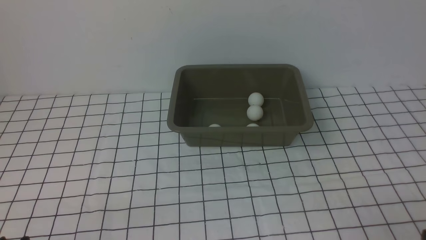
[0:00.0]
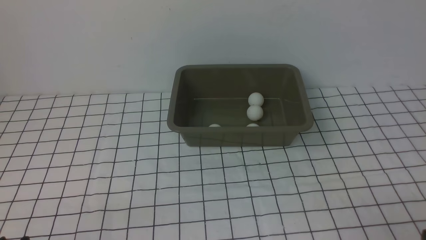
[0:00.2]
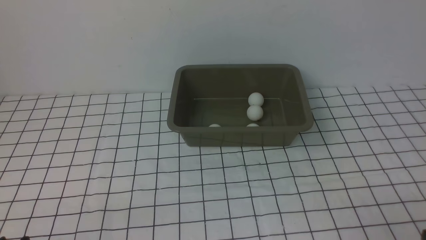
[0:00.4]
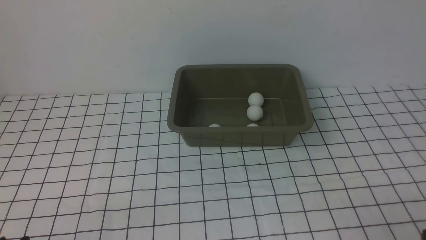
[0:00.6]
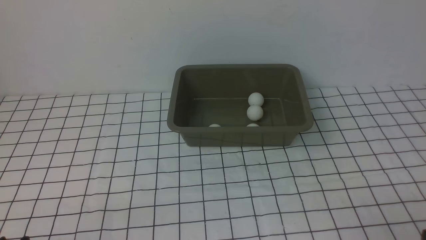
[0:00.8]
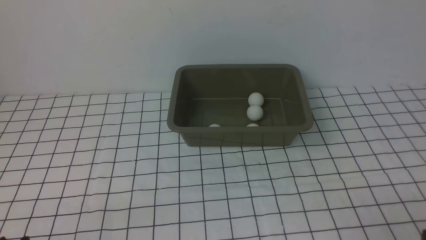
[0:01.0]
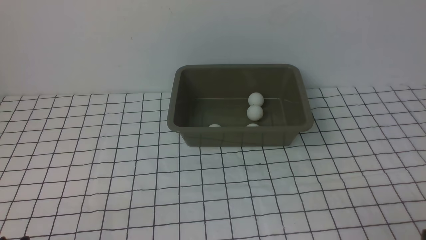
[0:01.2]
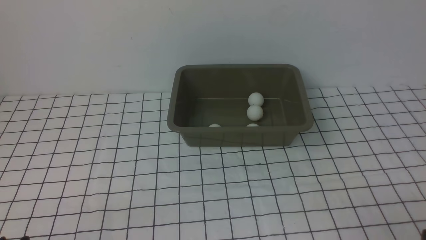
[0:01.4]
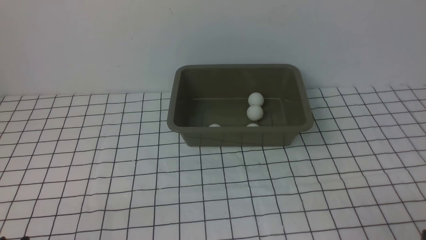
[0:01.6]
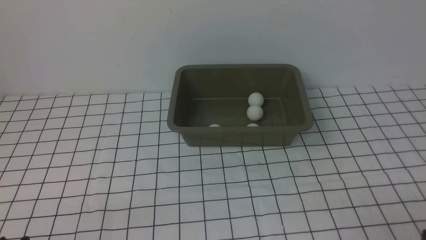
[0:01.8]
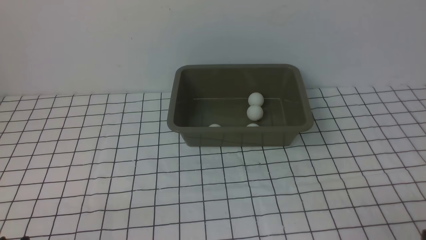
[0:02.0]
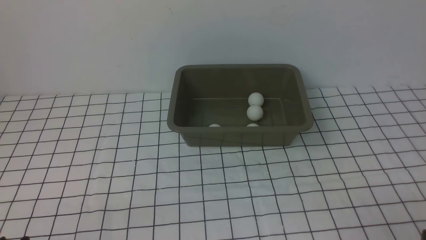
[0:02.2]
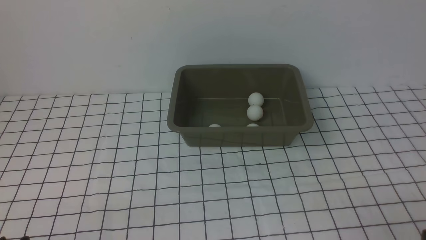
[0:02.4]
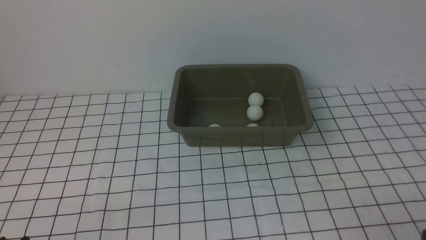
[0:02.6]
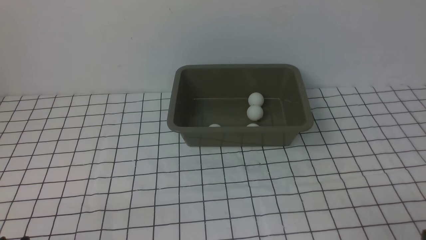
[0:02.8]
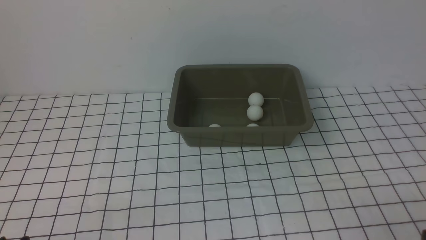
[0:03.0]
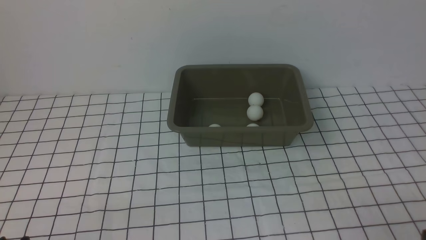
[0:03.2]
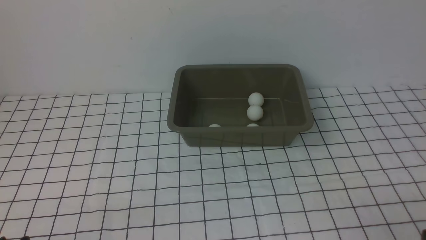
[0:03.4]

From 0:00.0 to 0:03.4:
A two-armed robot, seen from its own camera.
From 0:00.0 to 0:03.4: Both grippers stay about where they are.

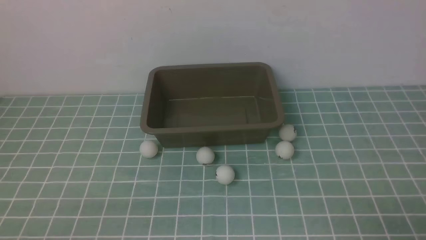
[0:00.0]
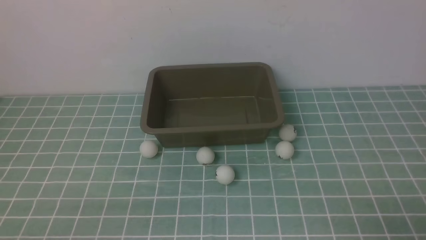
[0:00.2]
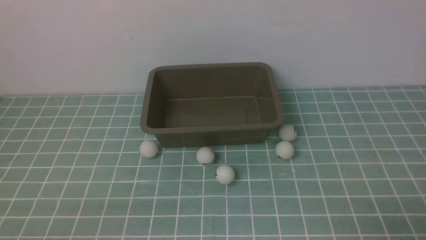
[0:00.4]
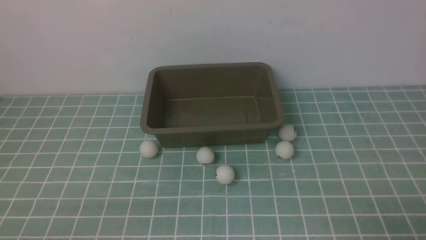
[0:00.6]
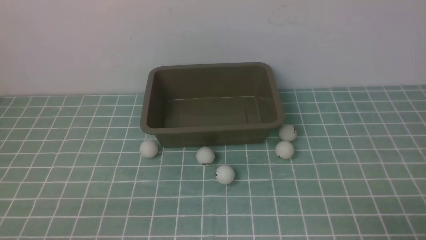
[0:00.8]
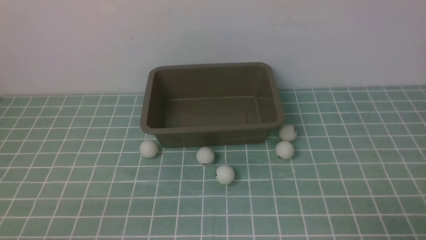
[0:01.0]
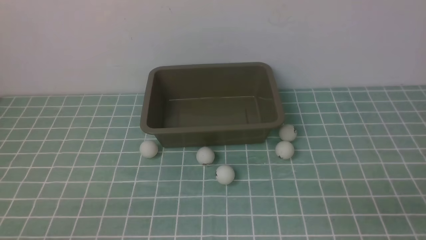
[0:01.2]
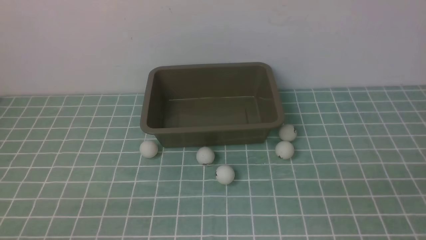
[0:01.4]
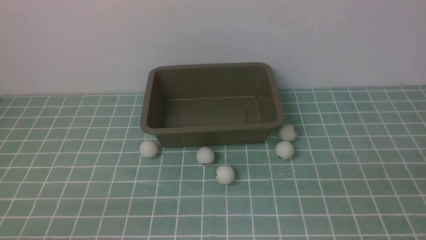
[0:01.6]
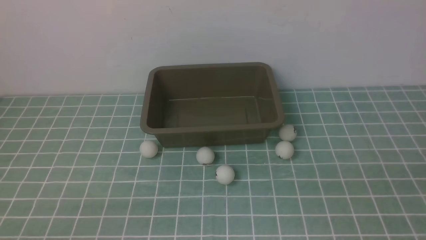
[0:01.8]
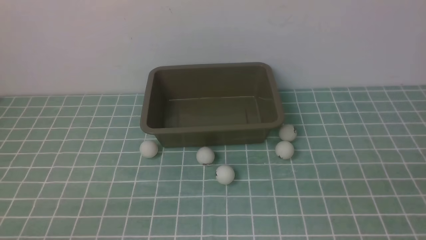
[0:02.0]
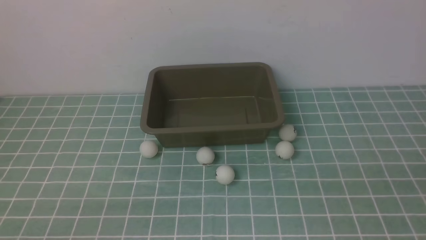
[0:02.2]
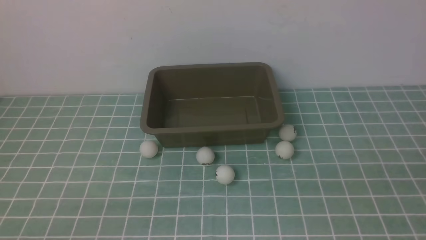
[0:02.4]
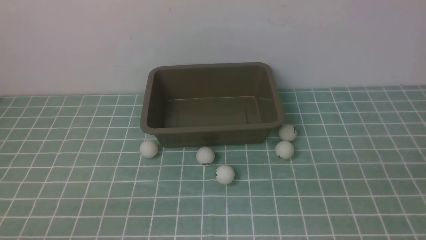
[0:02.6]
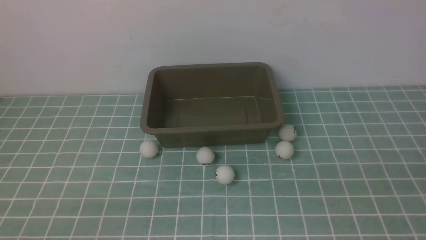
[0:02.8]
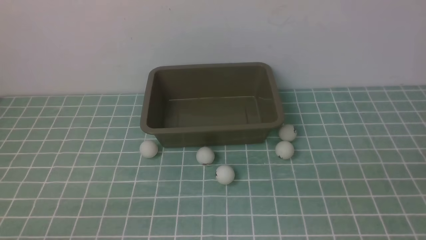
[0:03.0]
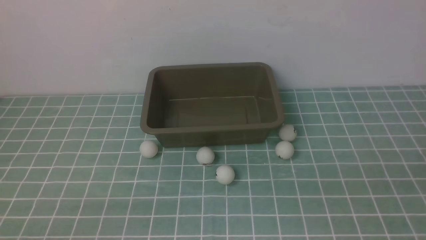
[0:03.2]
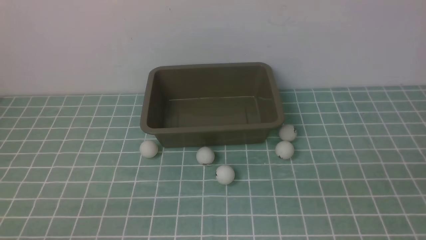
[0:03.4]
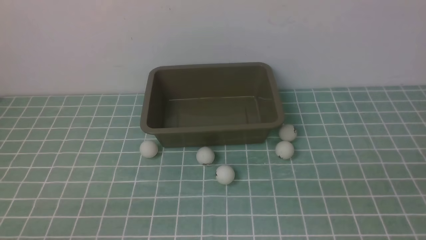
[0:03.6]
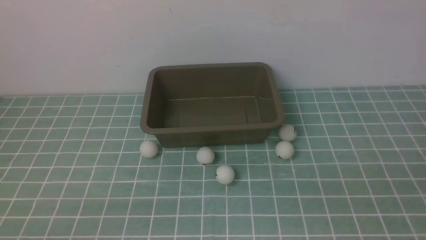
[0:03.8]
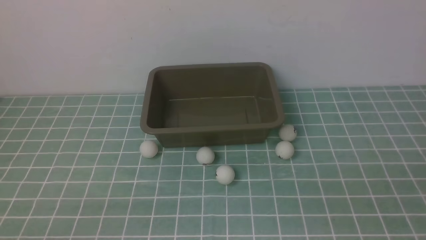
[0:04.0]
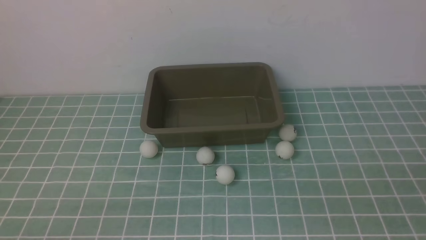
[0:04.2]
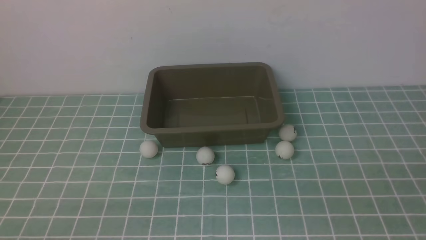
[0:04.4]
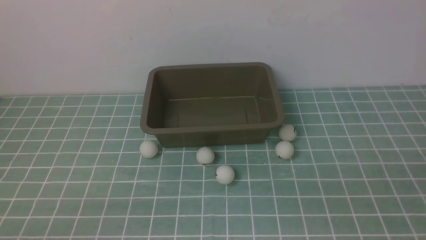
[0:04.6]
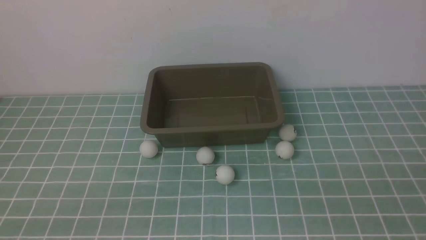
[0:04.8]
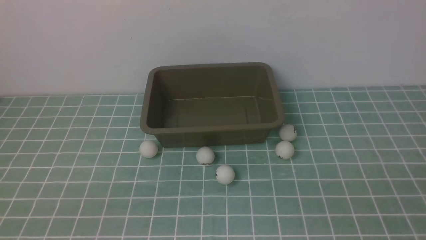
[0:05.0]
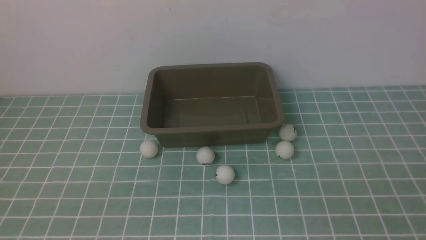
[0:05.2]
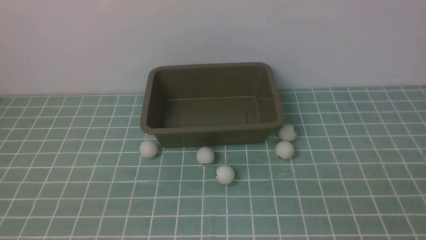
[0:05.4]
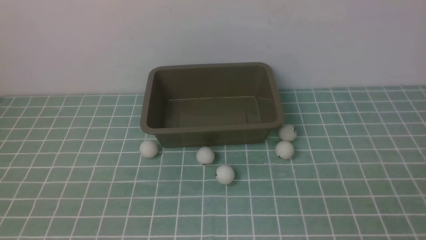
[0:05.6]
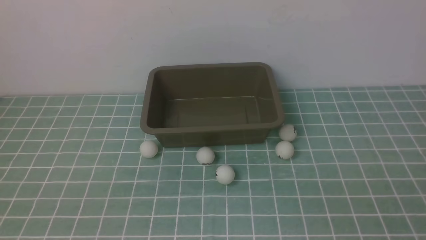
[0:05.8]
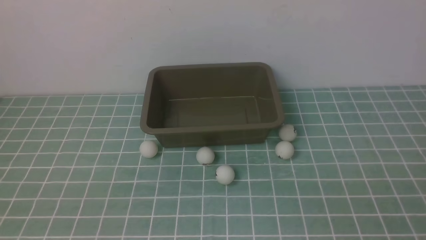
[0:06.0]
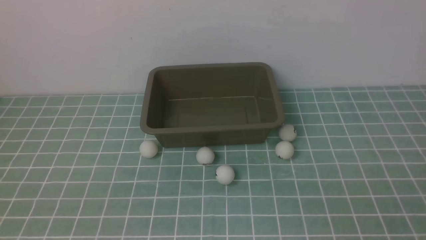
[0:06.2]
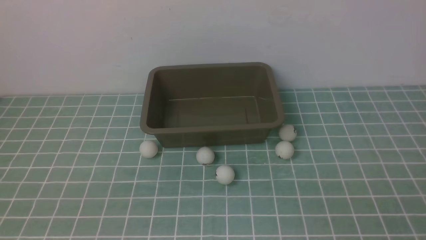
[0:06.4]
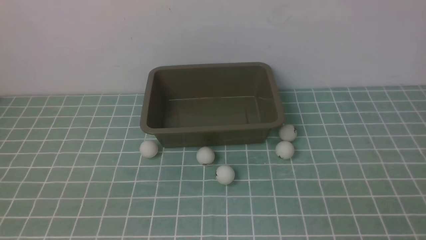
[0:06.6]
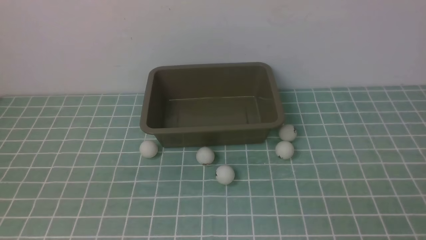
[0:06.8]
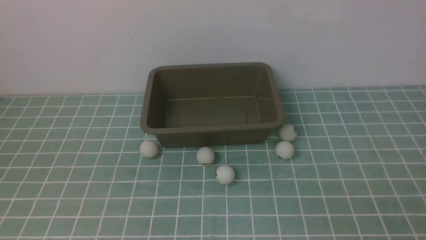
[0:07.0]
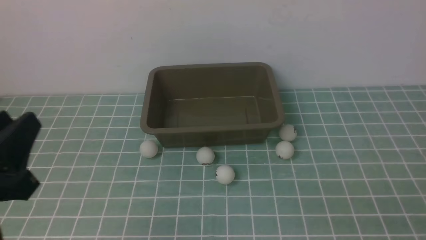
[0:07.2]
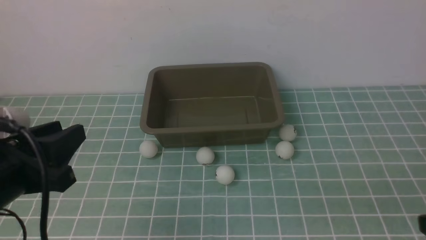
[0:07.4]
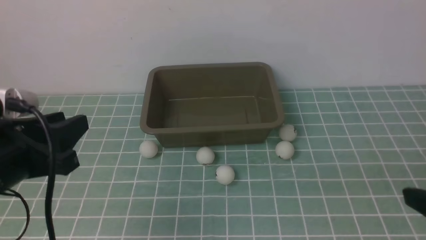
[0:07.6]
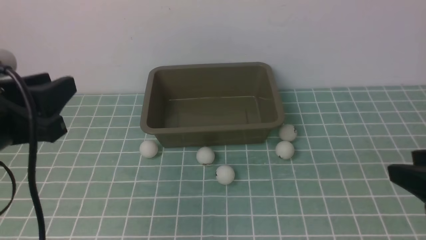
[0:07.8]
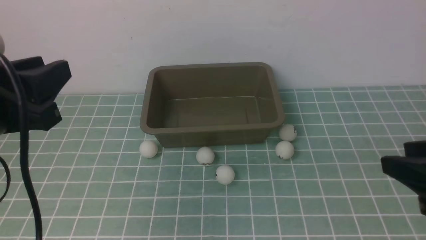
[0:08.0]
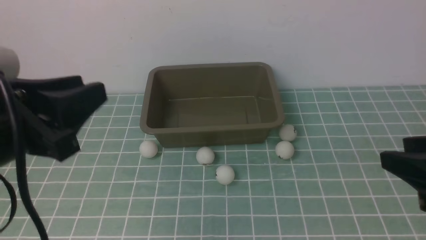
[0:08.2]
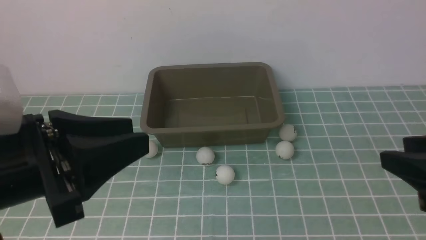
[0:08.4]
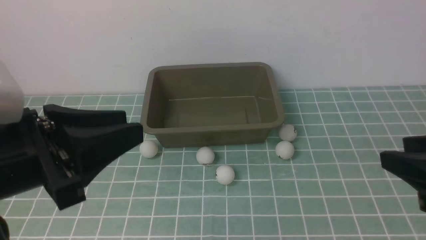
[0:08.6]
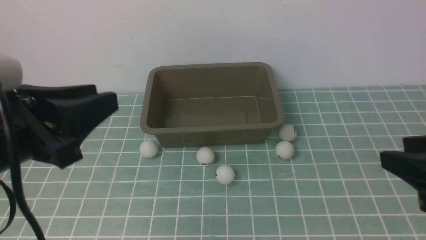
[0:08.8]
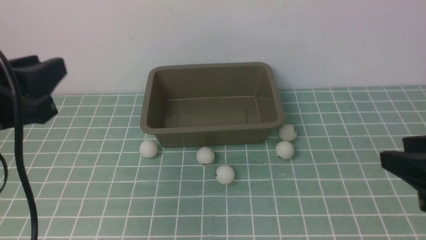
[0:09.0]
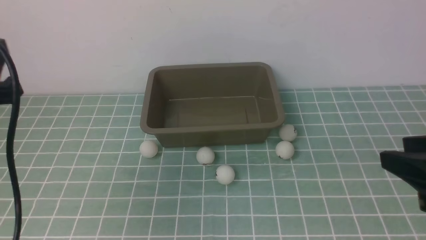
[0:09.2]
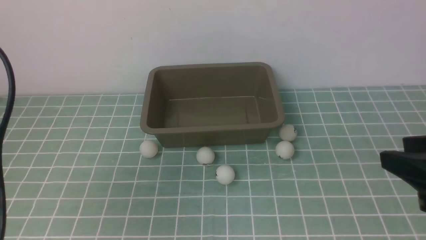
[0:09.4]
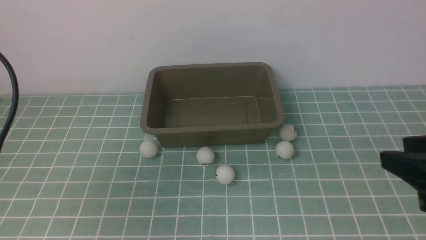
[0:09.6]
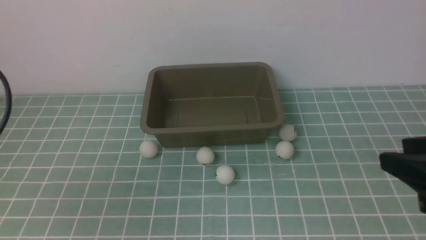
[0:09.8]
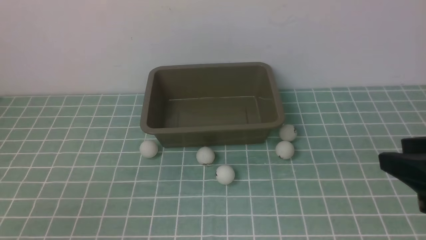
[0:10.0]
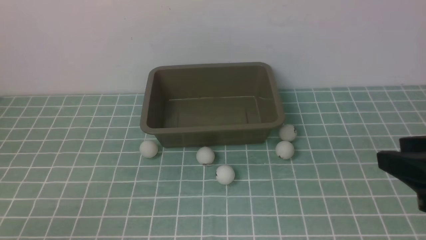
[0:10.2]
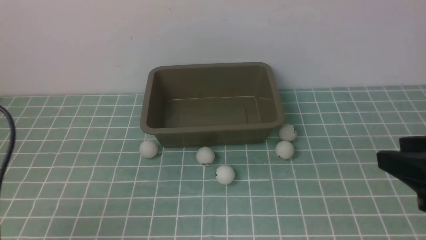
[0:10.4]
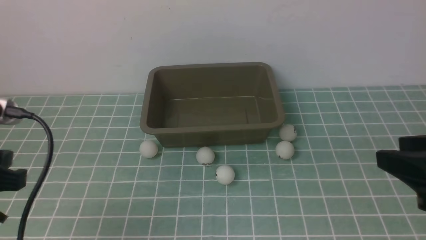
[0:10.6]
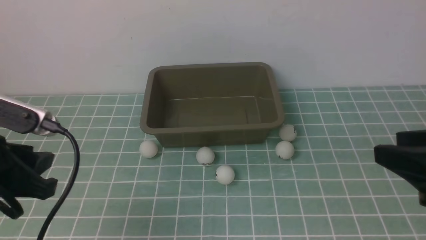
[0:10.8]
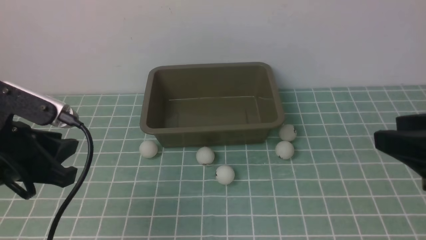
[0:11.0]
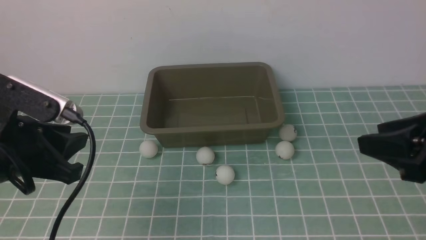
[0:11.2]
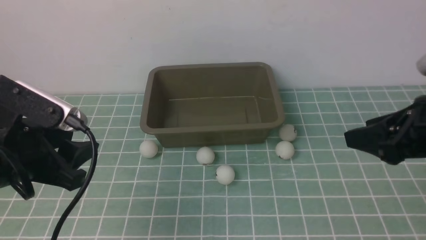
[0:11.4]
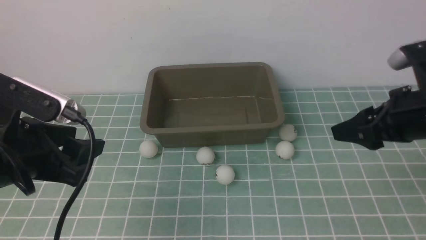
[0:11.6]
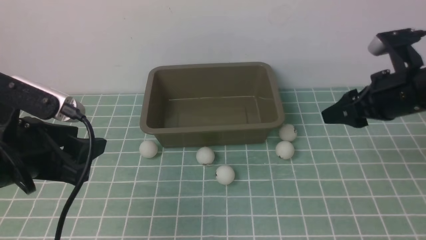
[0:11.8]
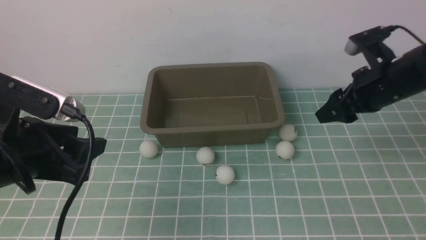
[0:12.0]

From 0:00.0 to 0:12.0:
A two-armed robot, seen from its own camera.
From 0:06.0 to 0:07.6: The left gripper heads forward and upward, covering roughly 15 cm, and opens.
From 0:07.6 to 0:09.0: The right gripper heads forward, covering roughly 5 cm.
From 0:09.0 to 0:10.4: The left gripper goes approximately 10 cm to the left.
From 0:10.4 to 0:12.0: The left gripper is displaced to the right by approximately 10 cm; the right gripper travels forward by roughly 20 cm.

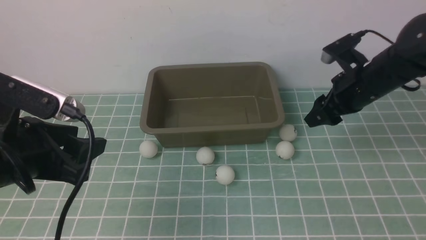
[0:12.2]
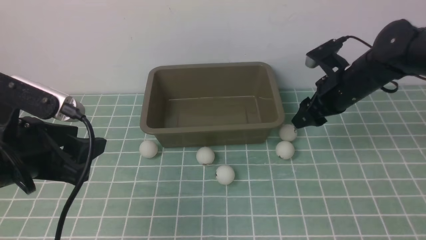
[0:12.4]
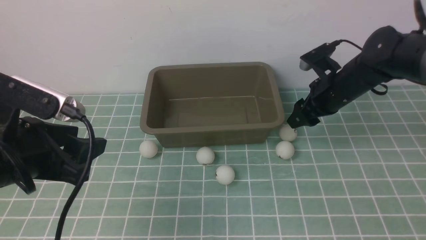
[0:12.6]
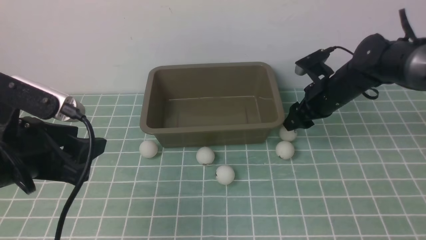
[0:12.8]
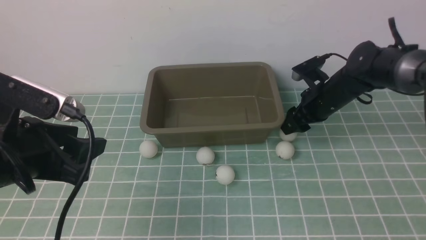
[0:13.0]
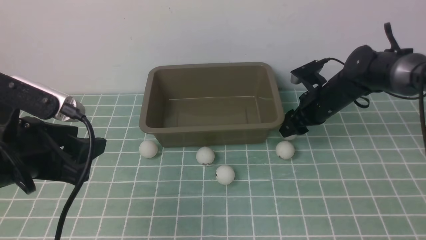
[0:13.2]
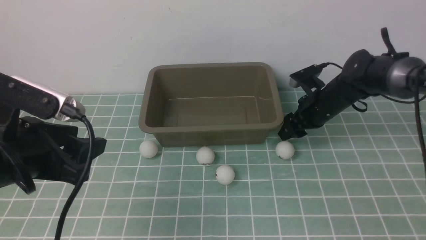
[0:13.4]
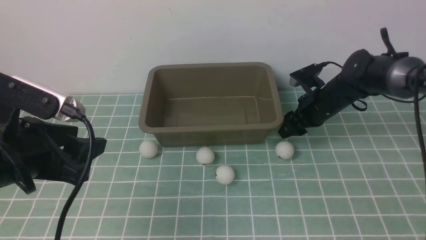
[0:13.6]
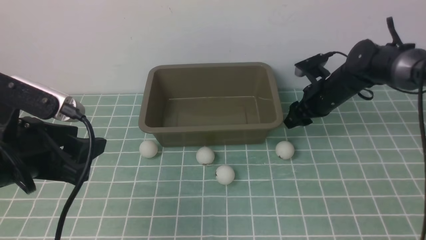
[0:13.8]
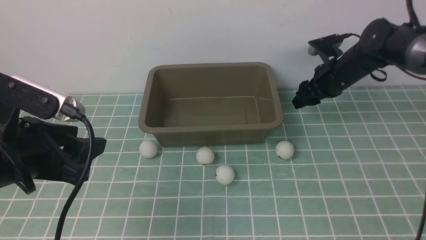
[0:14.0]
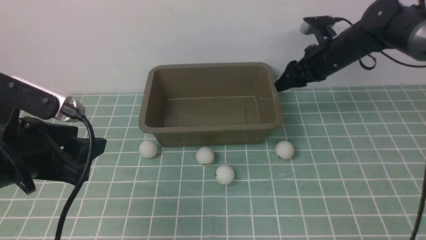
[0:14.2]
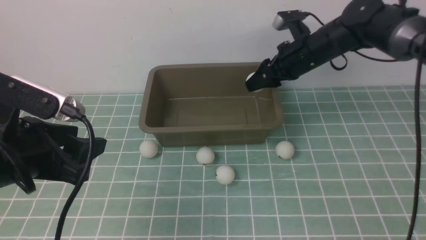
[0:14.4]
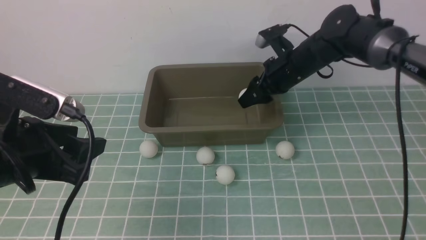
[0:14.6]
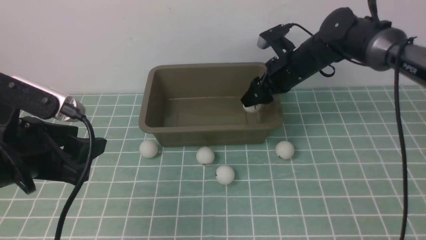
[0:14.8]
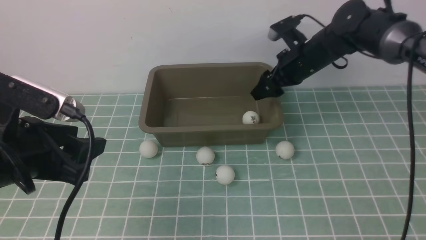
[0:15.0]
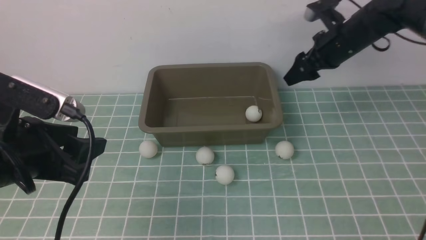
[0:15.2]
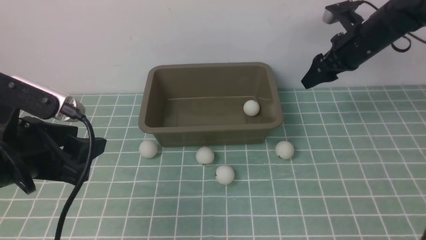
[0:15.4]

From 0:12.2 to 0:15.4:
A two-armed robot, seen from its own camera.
Step, from 0:14.2 to 0:15.0: use the right arm to put the table tennis ball into the box.
From 0:12.2 to 0:13.8: The right gripper heads forward and downward, covering some 10 cm.
From 0:13.8 to 0:15.4: The right gripper moves upward, approximately 10 cm.
